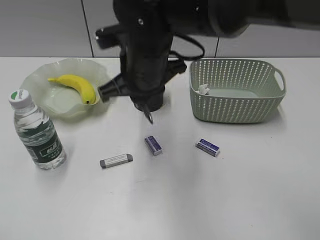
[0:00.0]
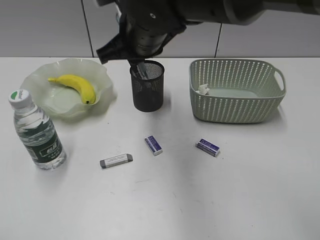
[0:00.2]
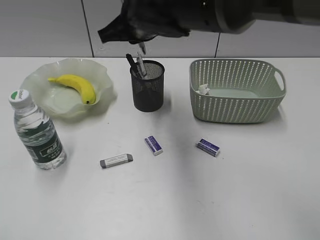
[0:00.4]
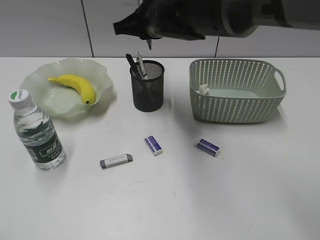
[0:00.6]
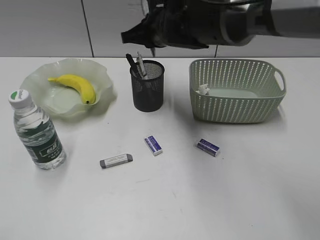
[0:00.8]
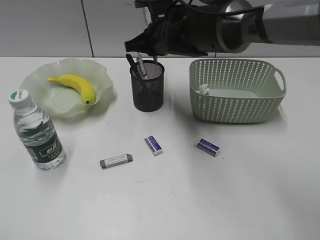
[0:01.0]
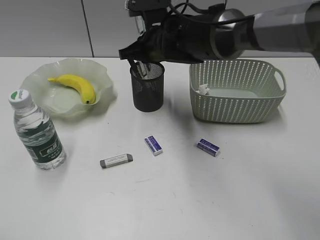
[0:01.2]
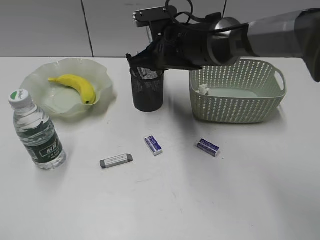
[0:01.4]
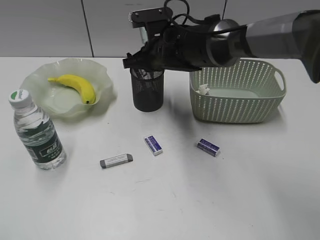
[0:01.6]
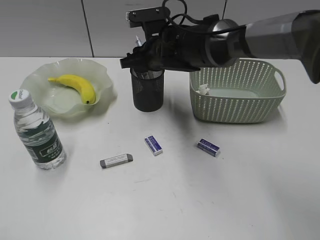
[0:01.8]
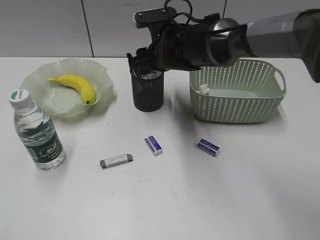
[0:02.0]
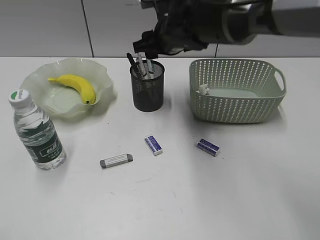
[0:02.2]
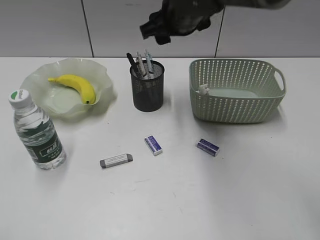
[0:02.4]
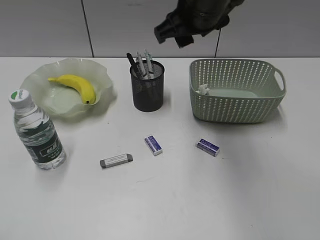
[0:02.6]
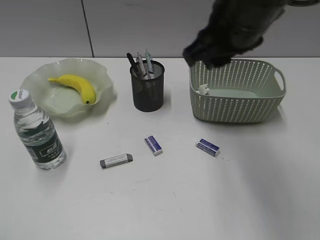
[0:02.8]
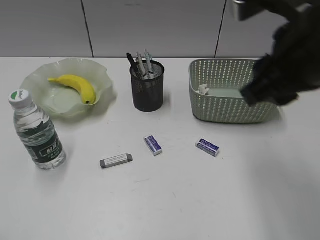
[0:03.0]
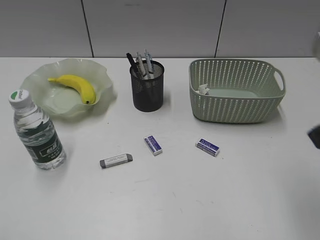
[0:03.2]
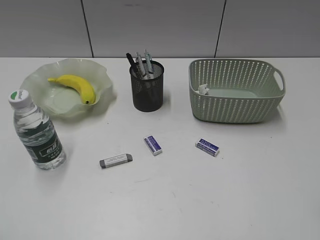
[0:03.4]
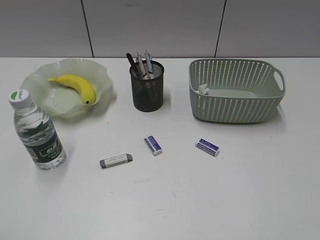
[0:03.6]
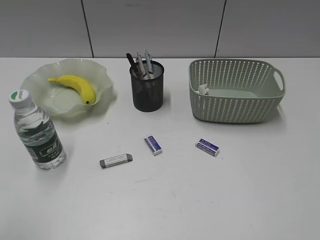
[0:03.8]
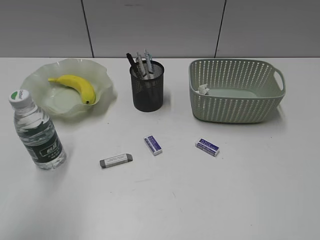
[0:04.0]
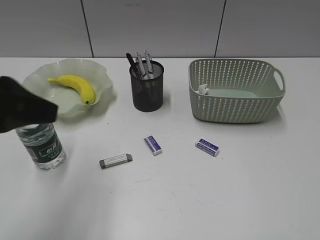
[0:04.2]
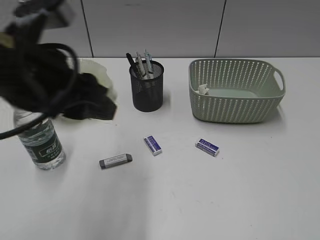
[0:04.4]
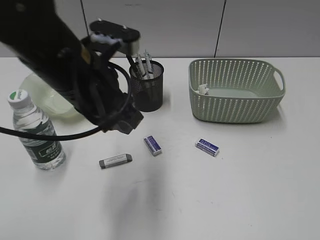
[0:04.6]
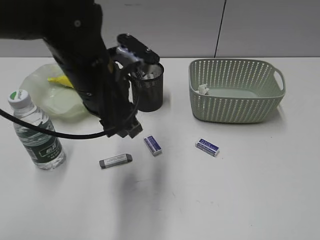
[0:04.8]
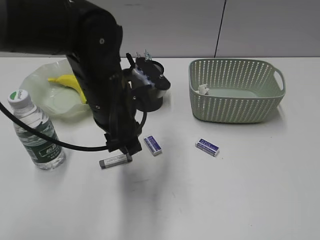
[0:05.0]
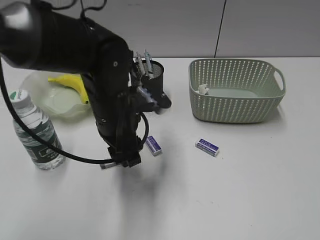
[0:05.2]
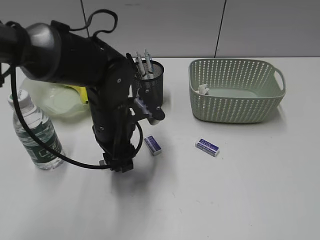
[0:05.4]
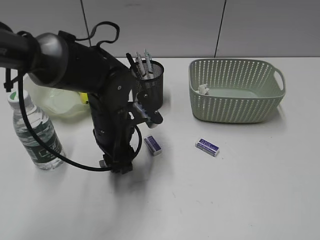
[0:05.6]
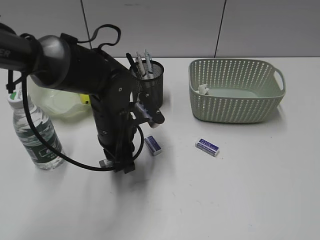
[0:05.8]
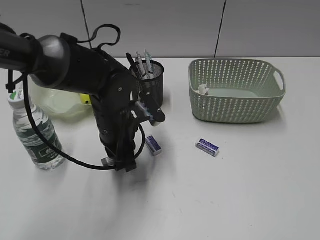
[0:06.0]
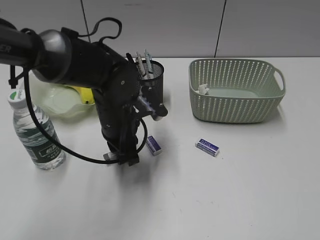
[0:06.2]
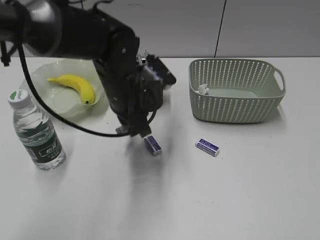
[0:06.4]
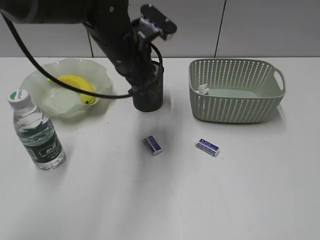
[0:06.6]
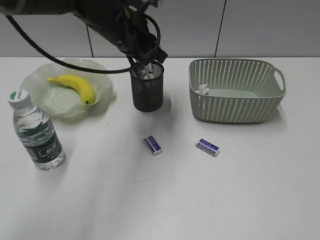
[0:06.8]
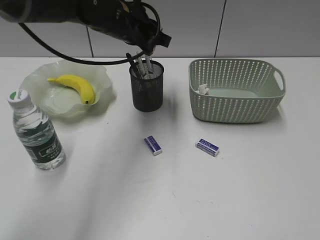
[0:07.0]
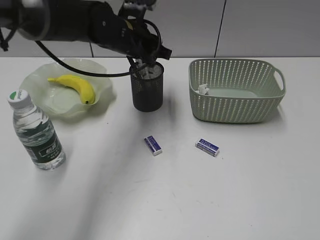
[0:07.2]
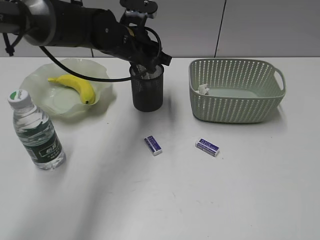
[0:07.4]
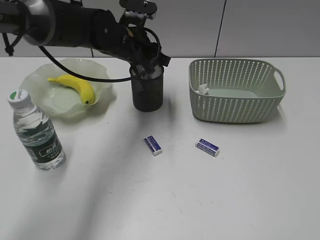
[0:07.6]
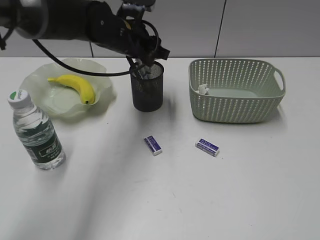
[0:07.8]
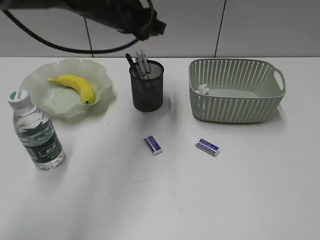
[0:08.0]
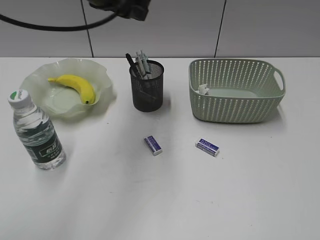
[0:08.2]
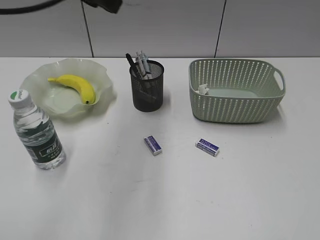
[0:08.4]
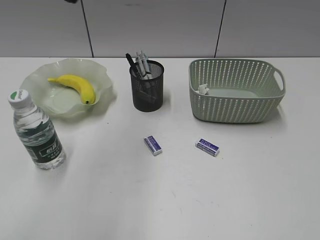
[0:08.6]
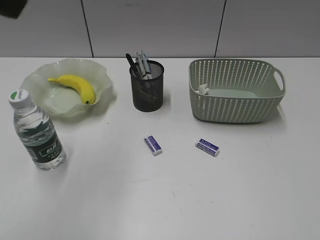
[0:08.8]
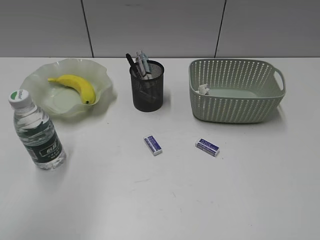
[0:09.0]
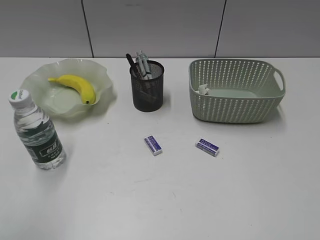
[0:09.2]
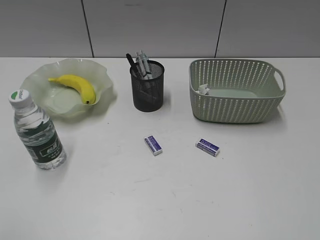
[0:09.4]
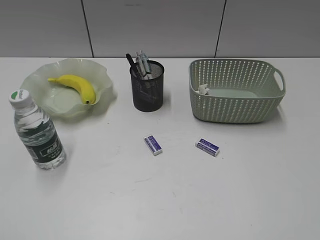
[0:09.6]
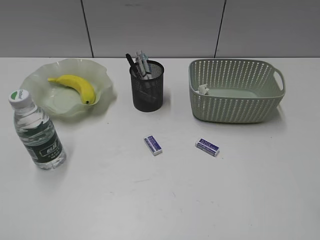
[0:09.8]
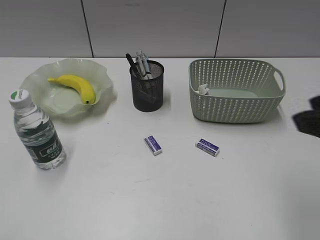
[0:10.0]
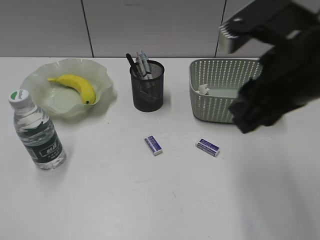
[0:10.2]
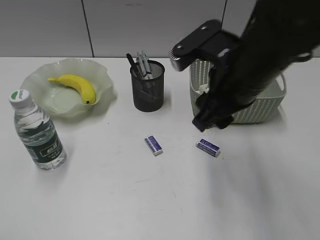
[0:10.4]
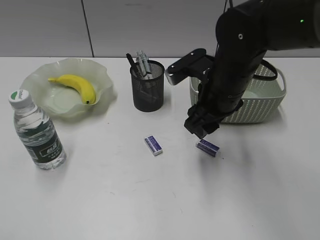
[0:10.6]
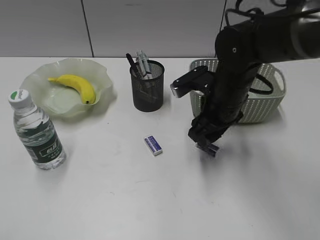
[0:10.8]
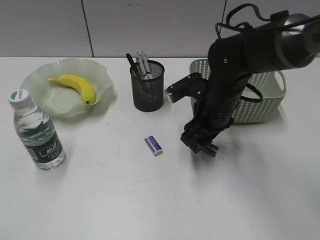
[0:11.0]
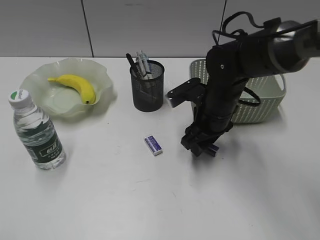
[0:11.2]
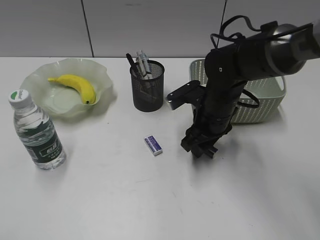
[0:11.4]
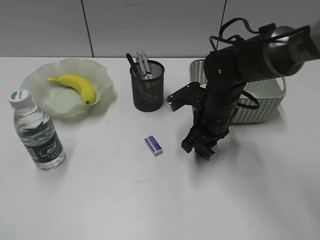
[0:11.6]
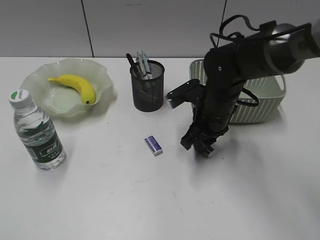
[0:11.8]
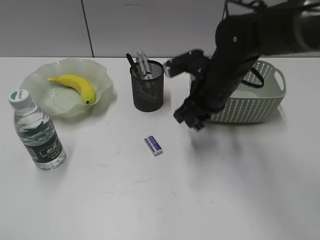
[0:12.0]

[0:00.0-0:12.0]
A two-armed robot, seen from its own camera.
Step, 0:00.0 to 0:02.0: Place the blue pen in pen holder with right gripper.
Step, 0:02.2 to 0:05.8: Grasp the eraser with left gripper.
Step, 0:06.0 to 0:07.6: Place the eraser in pen holder with left gripper.
Step, 0:07.8 to 0:11.6: Grasp the eraser with right gripper.
0:00.0 to 0:01.6: The right gripper is displaced forward and downward by about 15 cm.
0:01.6 to 0:03.0: The right gripper heads backward, upward and to the right, covering about 30 cm, and opens.
0:03.0 to 0:04.4: The right gripper travels backward and to the right by roughly 30 cm. Meanwhile the left gripper goes about 30 cm forward and to the right.
0:04.4 to 0:06.0: The left gripper heads downward, forward and to the right, covering about 20 cm.
0:06.0 to 0:07.6: The left gripper goes about 15 cm forward and upward, and opens its fingers.
0:07.6 to 0:09.0: The left gripper is displaced backward, upward and to the left by approximately 40 cm.
0:09.0 to 0:10.4: The right gripper travels forward and to the left by about 35 cm, and opens; the left gripper goes roughly 20 cm backward, downward and to the left.
0:10.4 to 0:12.0: The right gripper goes some 10 cm downward and forward, and closes its fingers.

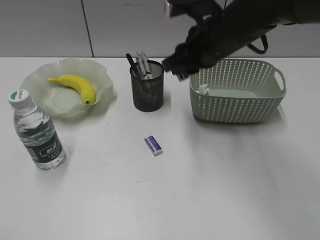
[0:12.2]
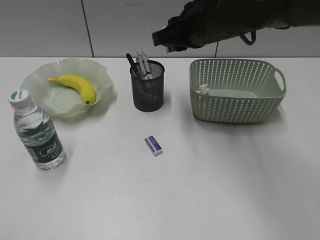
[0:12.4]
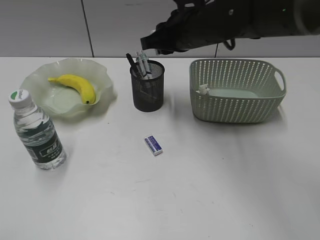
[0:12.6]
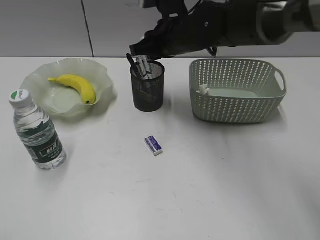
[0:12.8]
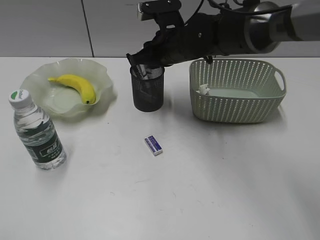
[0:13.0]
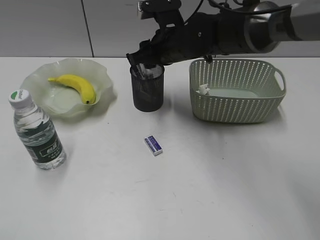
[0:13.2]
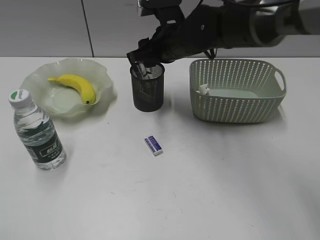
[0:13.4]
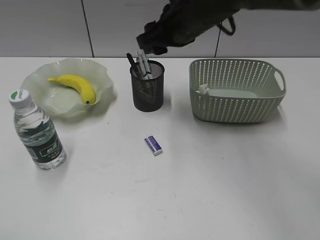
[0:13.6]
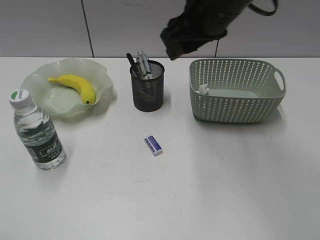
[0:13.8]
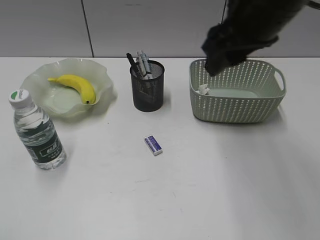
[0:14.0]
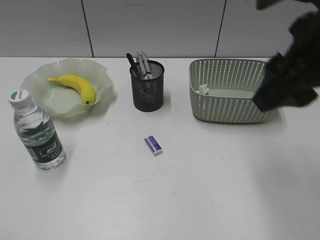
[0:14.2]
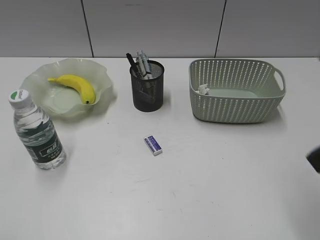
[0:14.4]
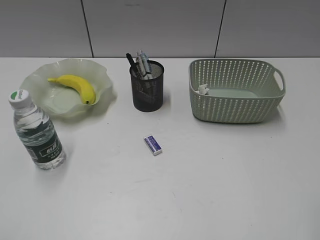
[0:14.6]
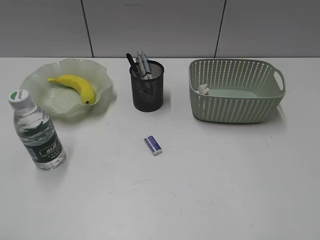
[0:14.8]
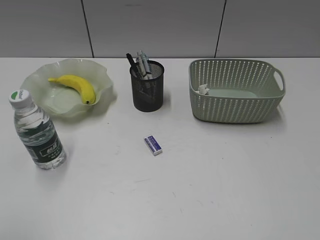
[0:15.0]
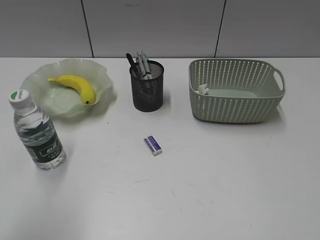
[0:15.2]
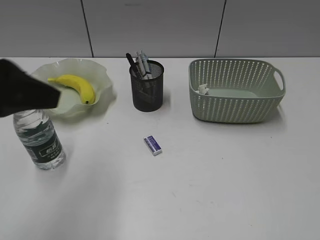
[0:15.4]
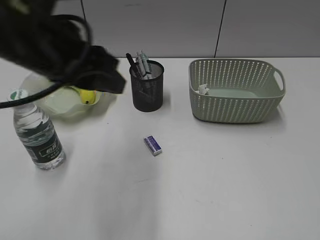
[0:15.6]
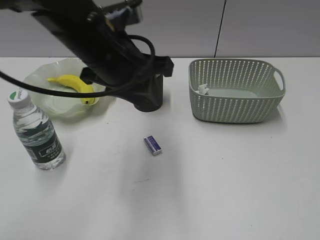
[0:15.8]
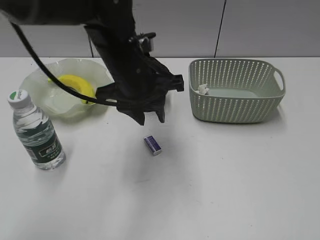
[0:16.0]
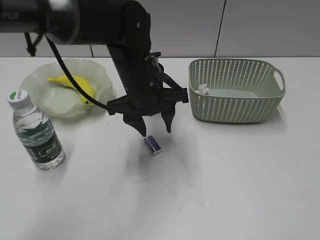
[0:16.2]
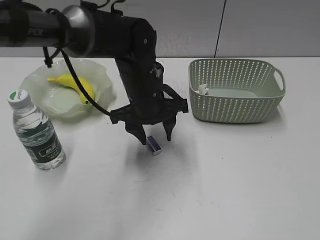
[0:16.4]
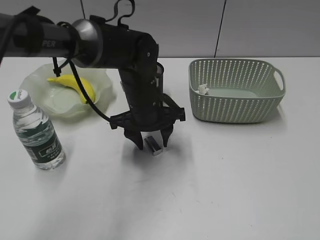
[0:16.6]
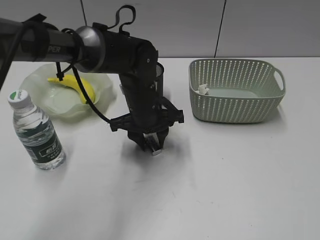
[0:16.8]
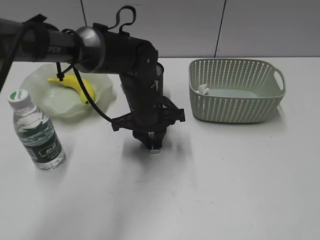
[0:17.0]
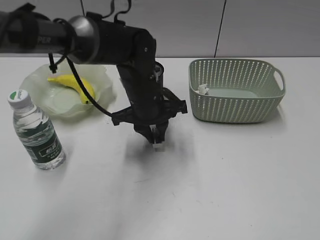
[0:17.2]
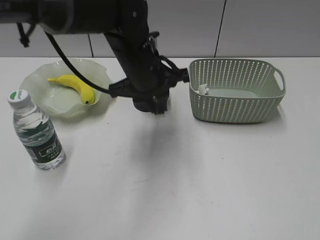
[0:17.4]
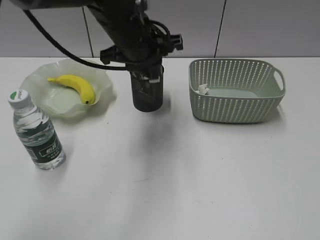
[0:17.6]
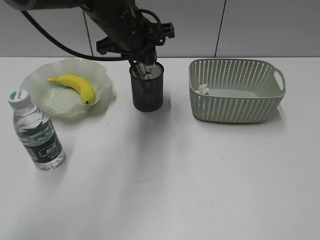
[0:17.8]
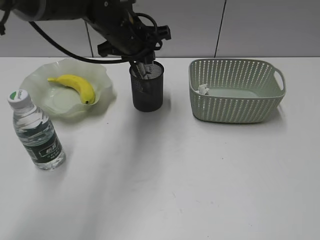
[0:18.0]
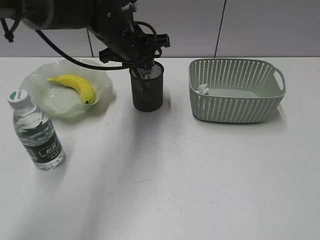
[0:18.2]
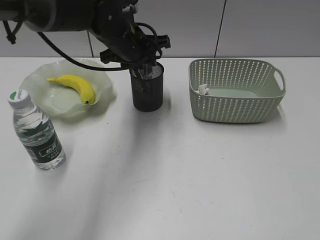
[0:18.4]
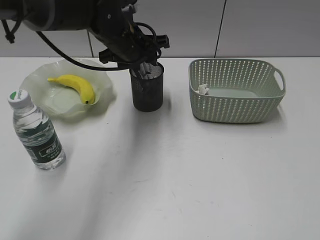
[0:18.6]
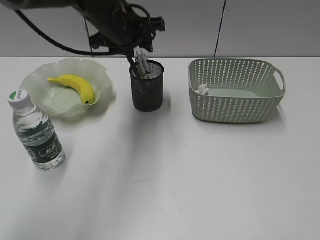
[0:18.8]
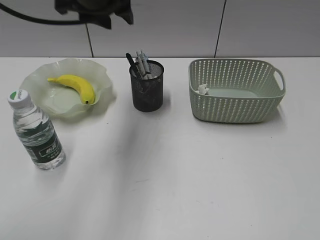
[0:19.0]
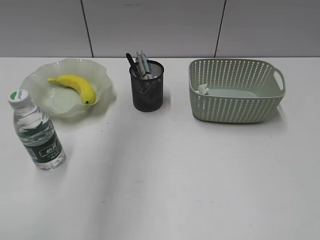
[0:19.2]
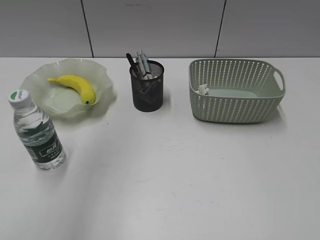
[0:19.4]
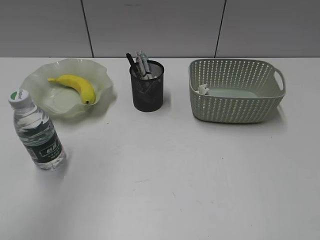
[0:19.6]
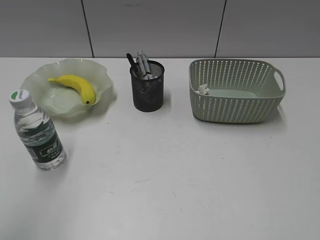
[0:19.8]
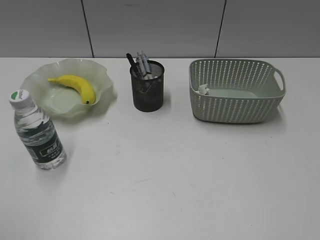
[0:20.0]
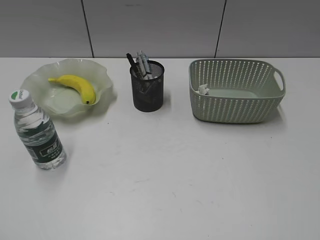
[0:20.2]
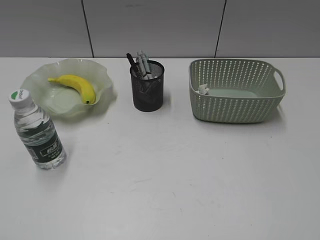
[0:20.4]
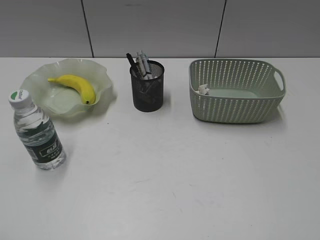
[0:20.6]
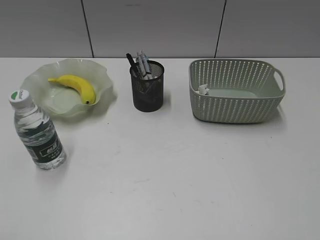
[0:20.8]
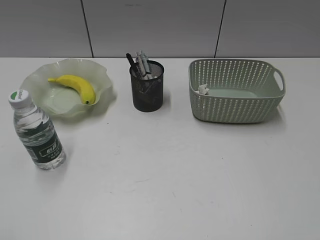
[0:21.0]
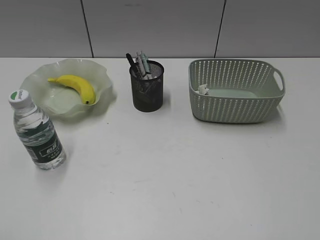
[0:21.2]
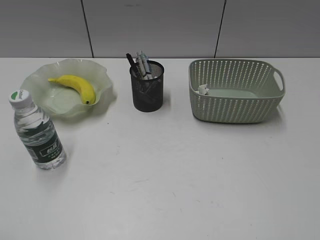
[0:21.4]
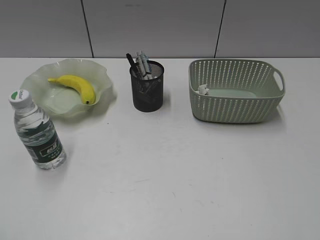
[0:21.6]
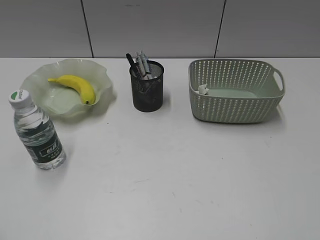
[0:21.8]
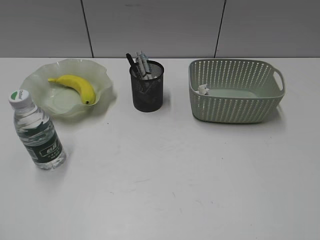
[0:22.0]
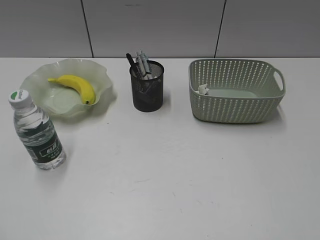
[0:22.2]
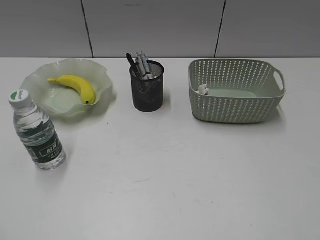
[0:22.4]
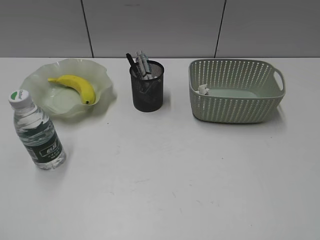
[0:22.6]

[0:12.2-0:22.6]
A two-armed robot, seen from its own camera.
Step, 0:12.2 to 0:13.4: Place the eraser in pen holder with right gripper.
Step, 0:13.6 to 0:17.0: Grasp the eraser with left gripper.
Step, 0:17.2 to 0:18.6: Place the eraser in pen holder with left gripper.
0:12.2 to 0:13.6: The right gripper opens up.
0:13.6 to 0:15.2: The left gripper heads forward and to the right, covering roughly 10 cm. The right gripper moves backward and to the right, approximately 50 cm.
0:15.2 to 0:16.6: The left gripper travels forward, to the right and downward by some 40 cm, and opens up.
0:16.6 to 0:18.2: The left gripper goes roughly 10 cm upward and forward, and closes up.
0:18.2 to 0:19.6: The left gripper shifts roughly 40 cm upward, backward and to the left, and opens its fingers.
0:19.6 to 0:21.2: The left gripper heads downward, backward and to the left, covering approximately 30 cm.
